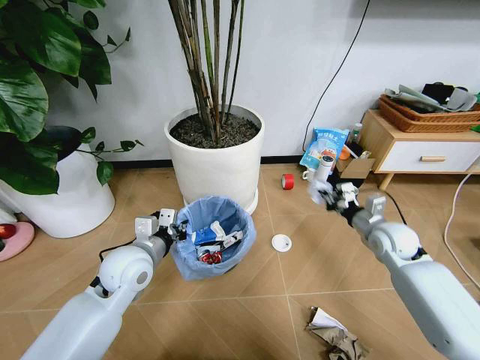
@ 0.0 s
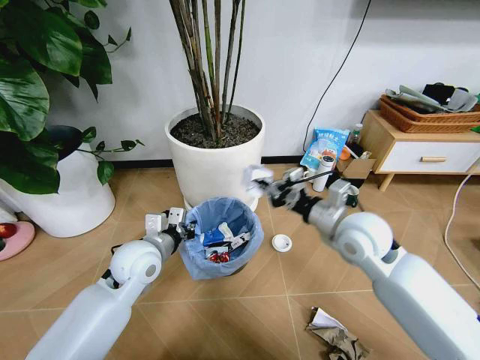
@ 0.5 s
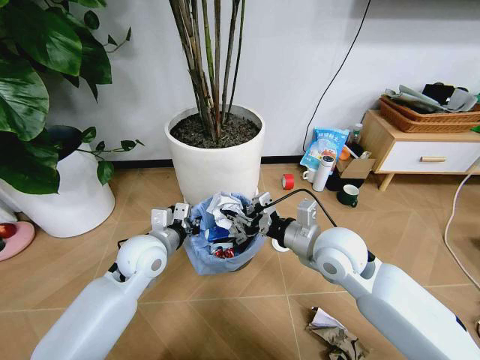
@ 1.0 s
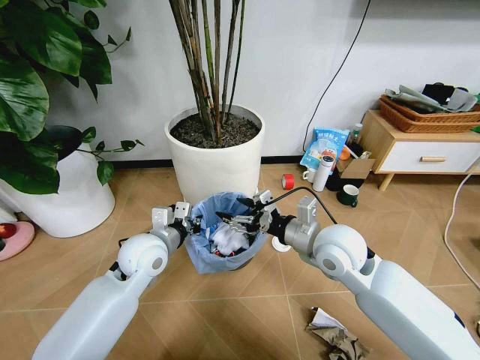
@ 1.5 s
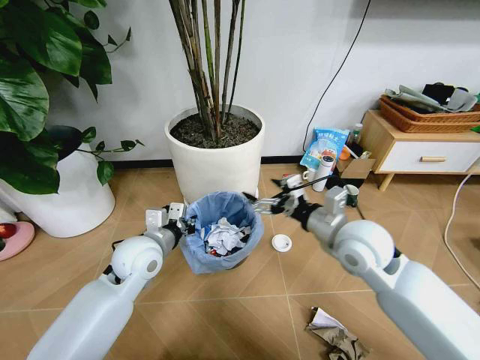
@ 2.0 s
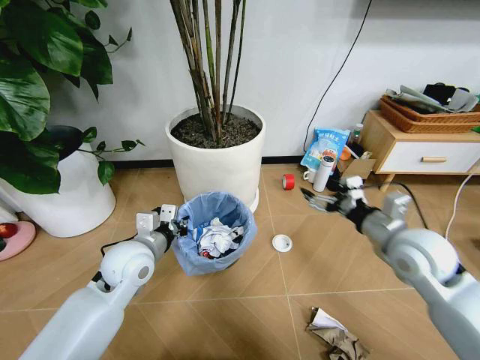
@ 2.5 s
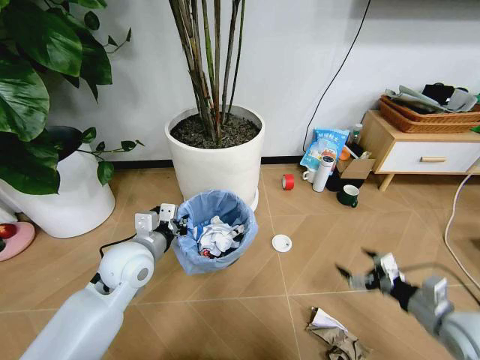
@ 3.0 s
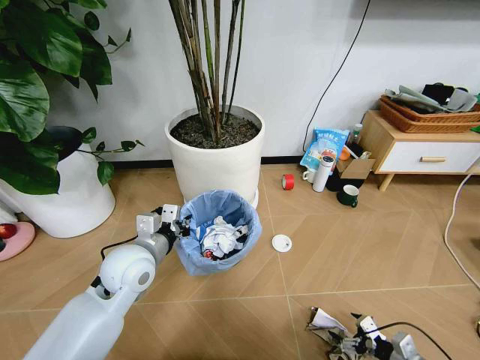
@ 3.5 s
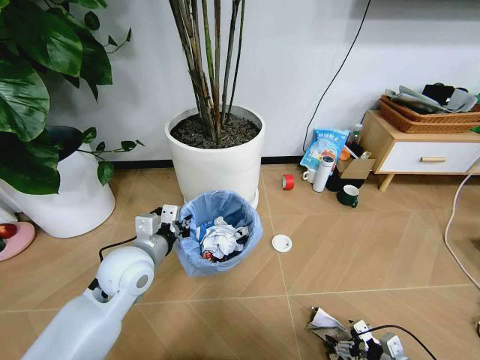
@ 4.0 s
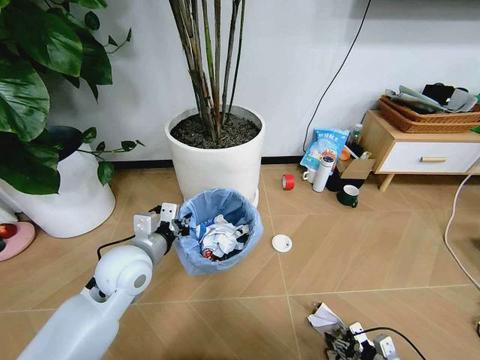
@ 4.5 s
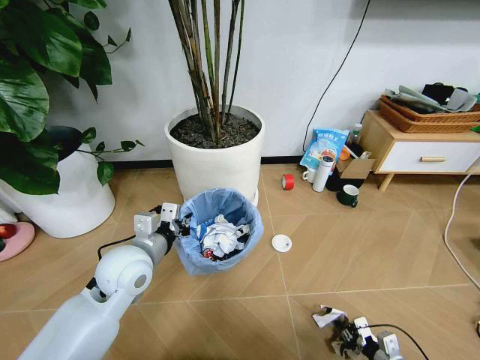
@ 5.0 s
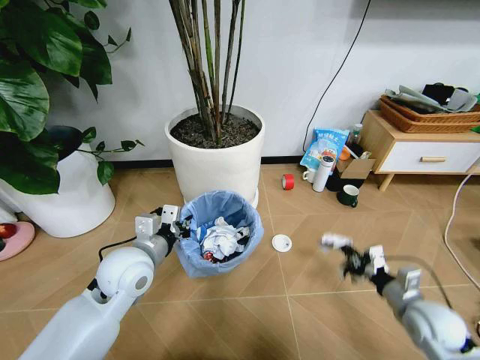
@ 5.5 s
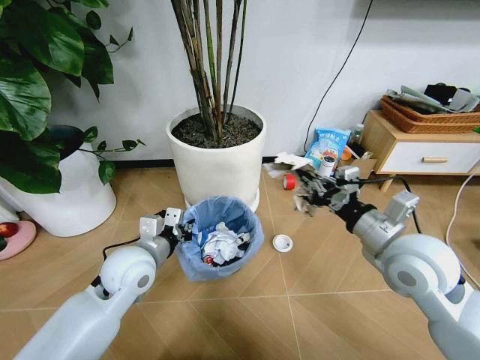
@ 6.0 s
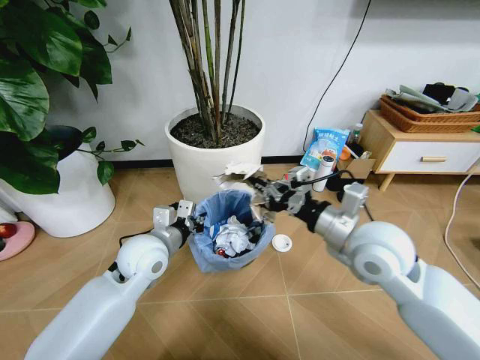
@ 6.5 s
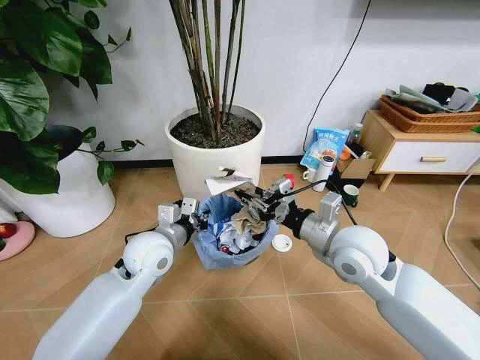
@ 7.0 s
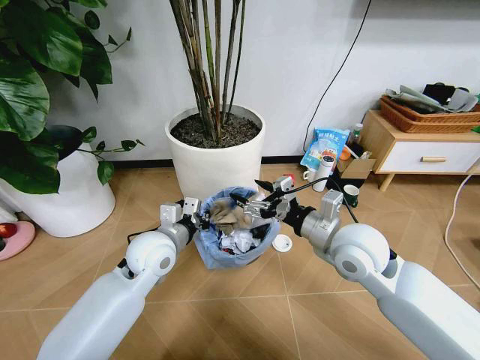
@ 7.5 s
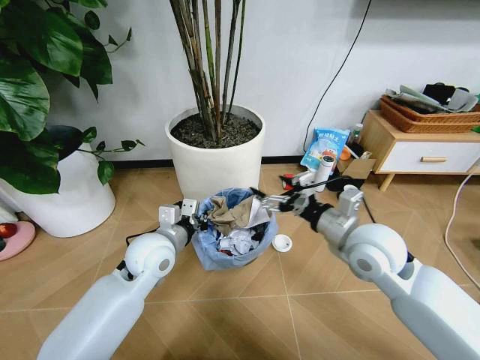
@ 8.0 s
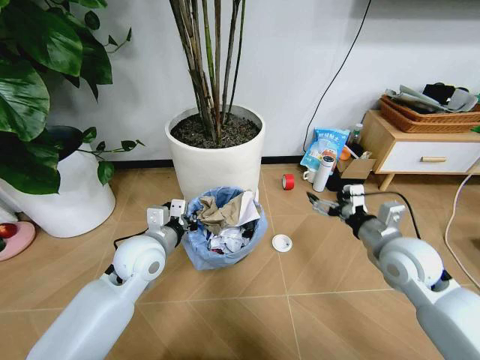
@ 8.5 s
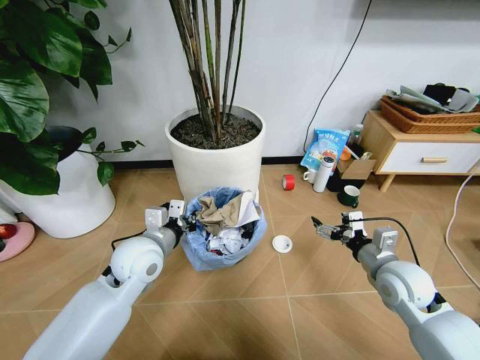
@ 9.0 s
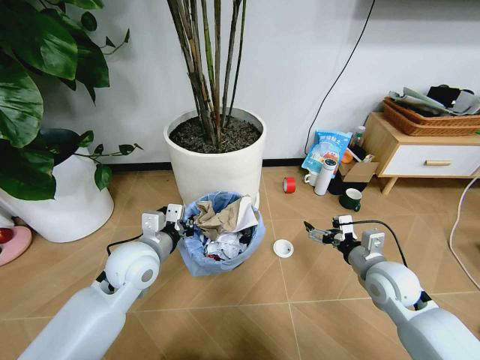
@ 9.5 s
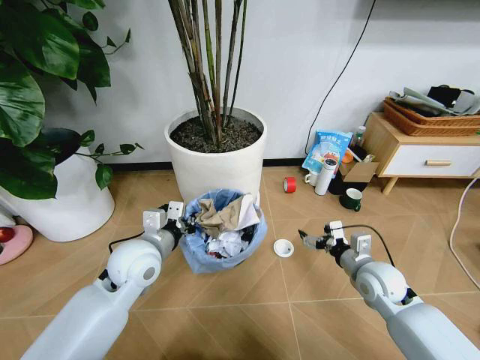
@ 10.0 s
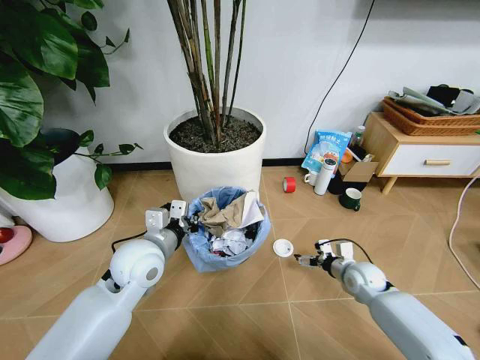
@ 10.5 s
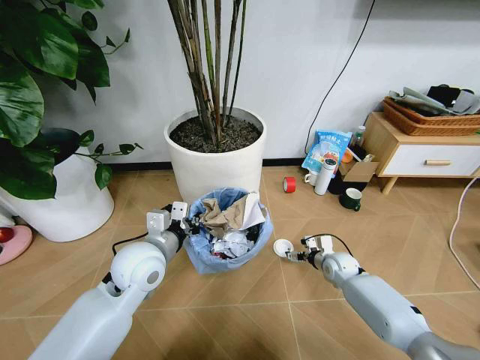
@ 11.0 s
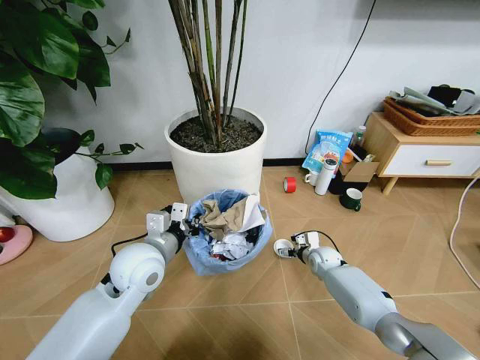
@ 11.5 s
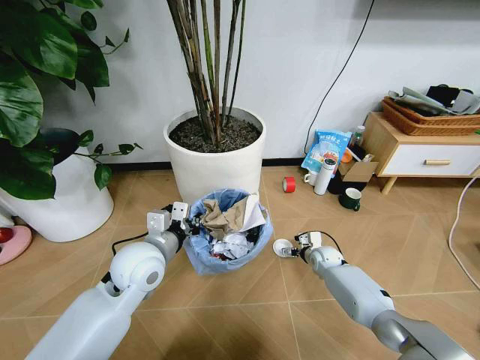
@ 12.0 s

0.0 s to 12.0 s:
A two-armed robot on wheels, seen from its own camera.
Task of the whole recording: Pick up the trash bin and place the garbage on the floor into it.
0.0 to 2.0 s: The right gripper travels to the left, upward and backward by some 20 cm, and opens.
2.0 to 4.0 s: The right gripper moves downward, to the right and backward, some 40 cm.
4.0 to 6.0 s: The right gripper travels upward and to the left by some 35 cm, and closes up.
6.0 to 8.0 s: The right gripper moves approximately 5 cm, and opens up.
8.0 to 10.0 s: The right gripper travels downward and to the right by some 15 cm.
10.0 to 12.0 s: The right gripper moves downward and forward, some 25 cm.

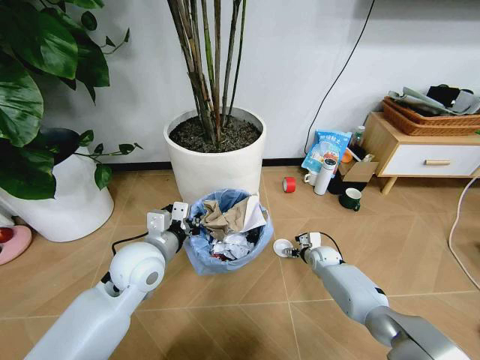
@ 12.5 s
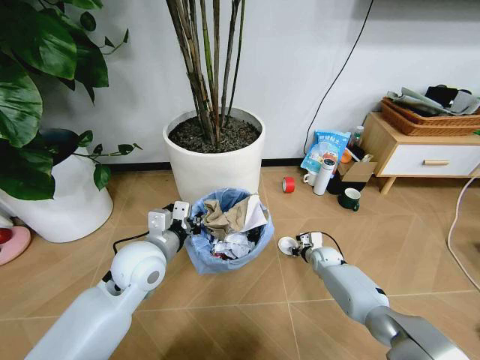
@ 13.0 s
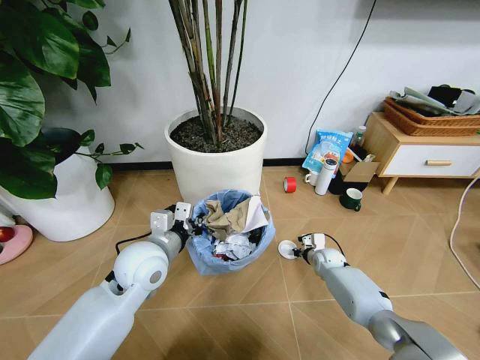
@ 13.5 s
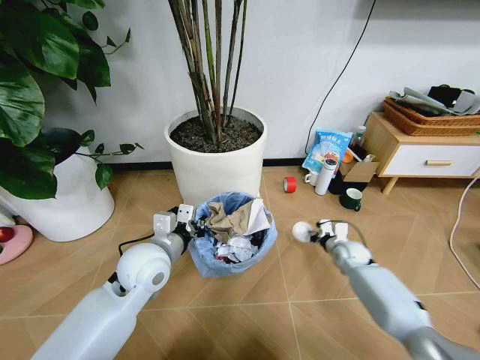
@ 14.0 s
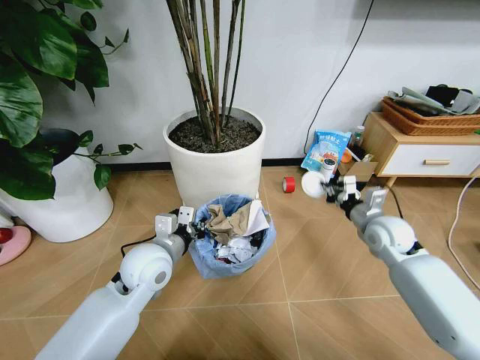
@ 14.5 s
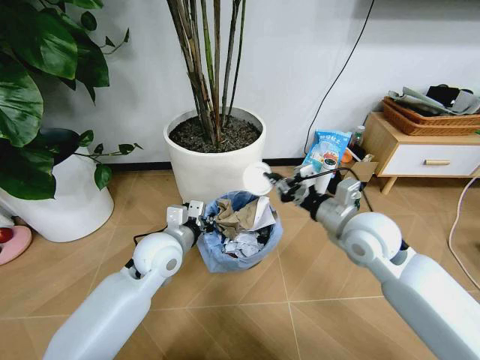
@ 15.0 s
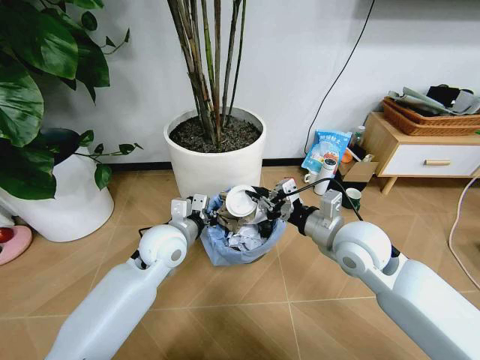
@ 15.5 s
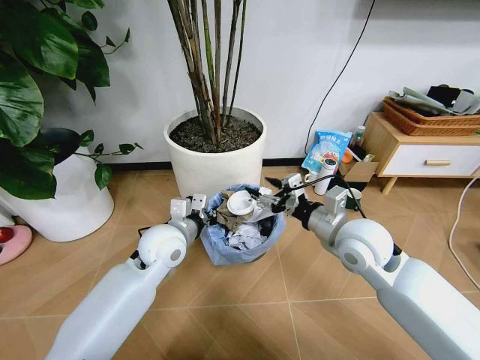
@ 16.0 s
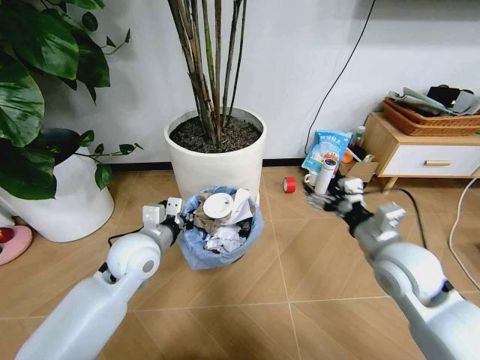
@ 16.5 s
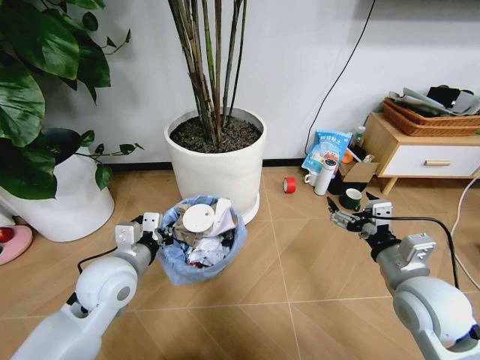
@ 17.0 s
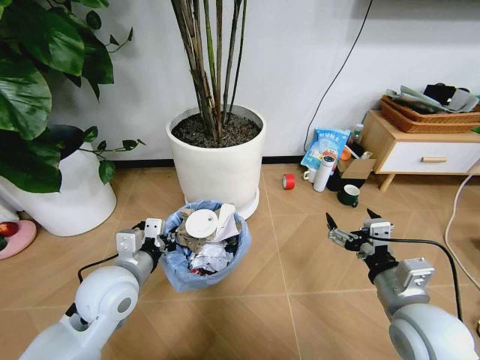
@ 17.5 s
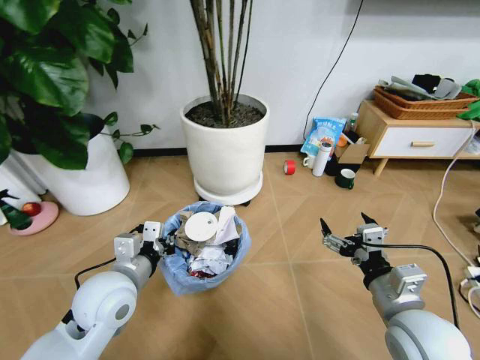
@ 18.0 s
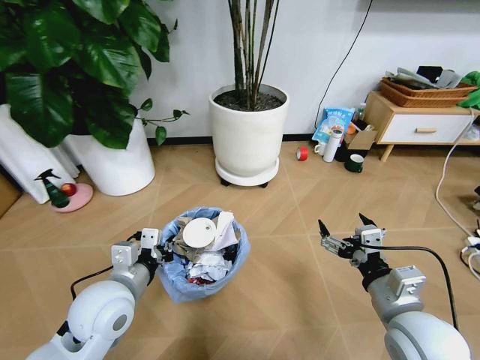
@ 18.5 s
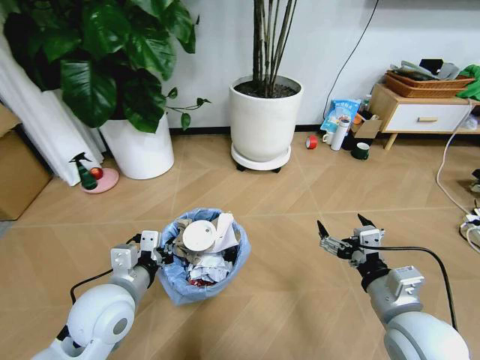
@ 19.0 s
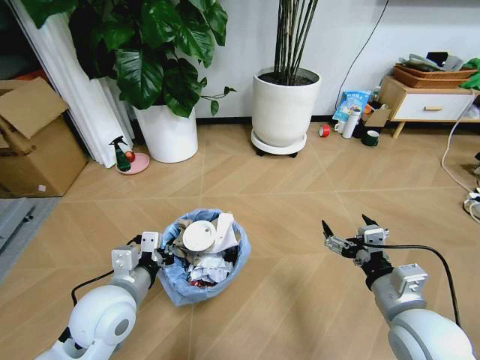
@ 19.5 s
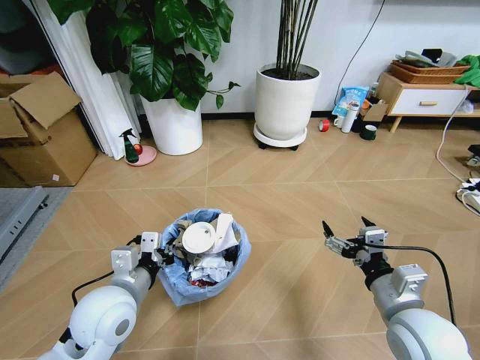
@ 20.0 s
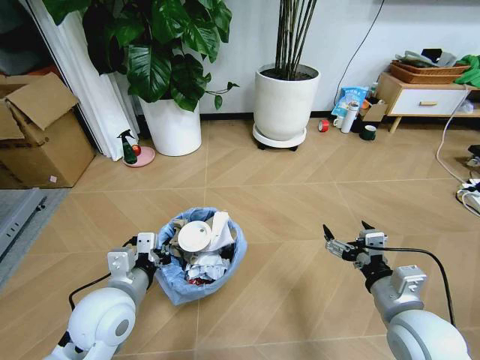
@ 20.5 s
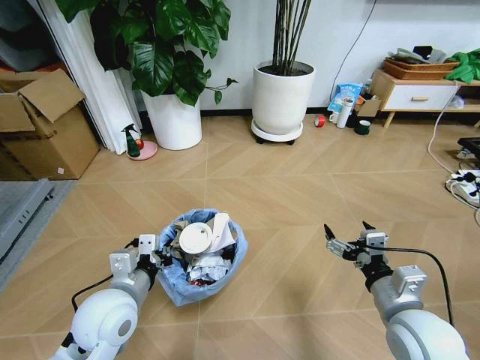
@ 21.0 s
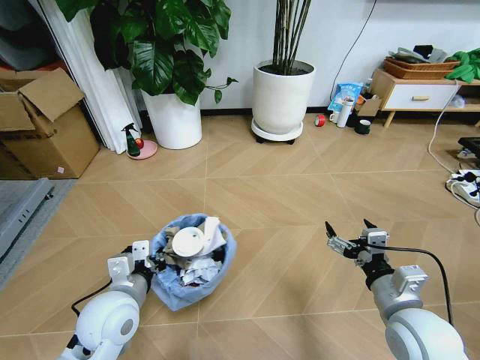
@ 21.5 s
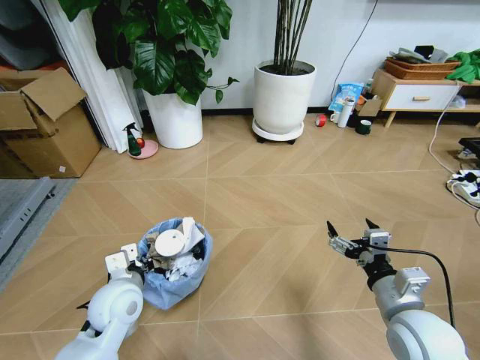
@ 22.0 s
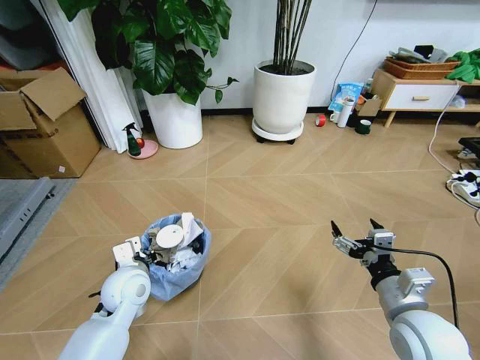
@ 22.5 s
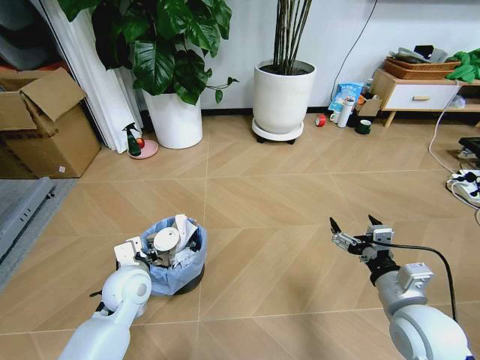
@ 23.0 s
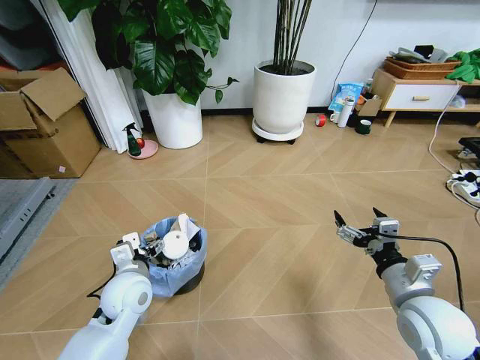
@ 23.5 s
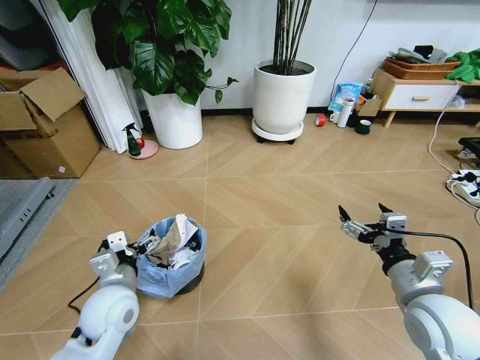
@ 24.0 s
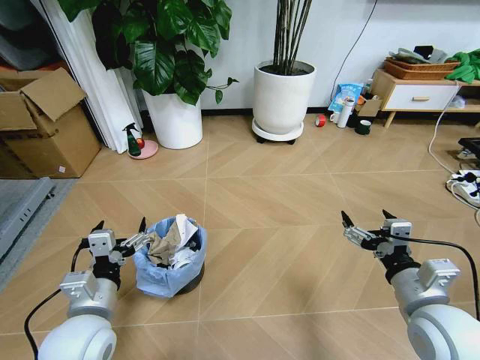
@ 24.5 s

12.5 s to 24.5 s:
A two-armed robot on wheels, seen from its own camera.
Task of the whole recording: Pick up the trash bin and place the garbage on the floor into it.
12.5 to 14.5 s: The right gripper travels upward by some 25 cm, and closes its fingers.
14.5 to 16.5 s: The right gripper is displaced backward, to the left and upward by some 15 cm, and opens up.
16.5 to 18.5 s: The grippers both shift backward by some 10 cm.
20.5 to 22.5 s: The left gripper moves forward and downward, some 10 cm.
22.5 to 24.5 s: The left gripper heads backward and upward, covering roughly 15 cm, and opens up.
